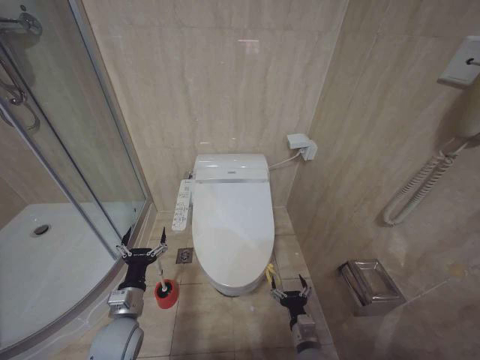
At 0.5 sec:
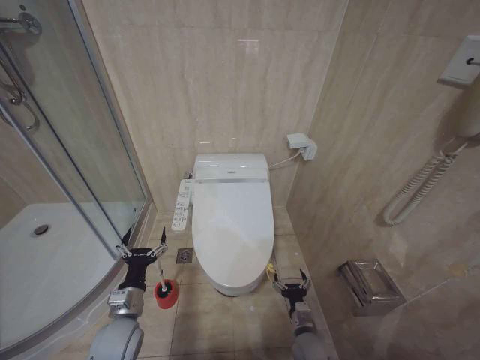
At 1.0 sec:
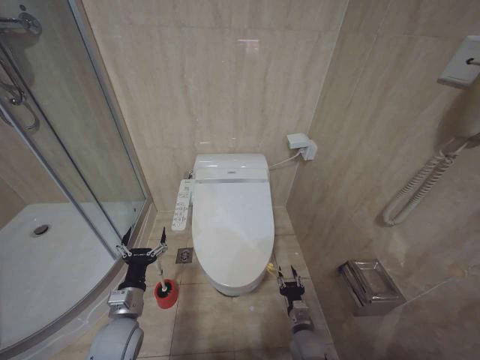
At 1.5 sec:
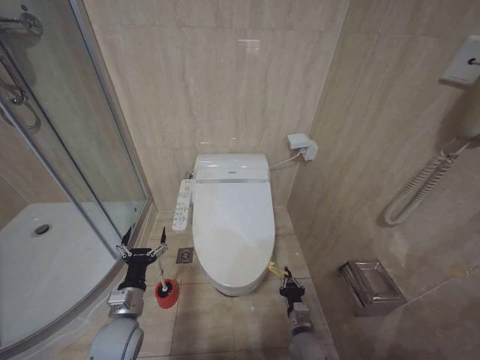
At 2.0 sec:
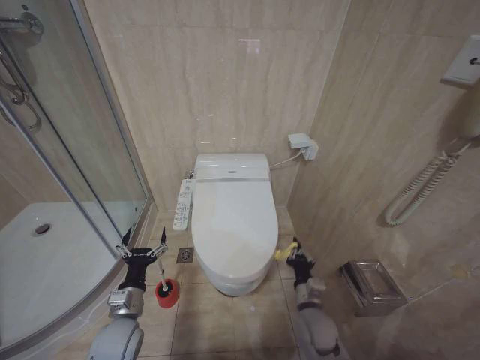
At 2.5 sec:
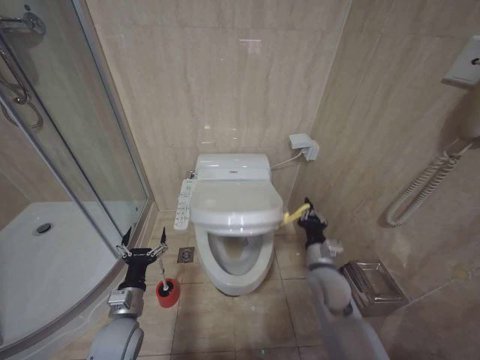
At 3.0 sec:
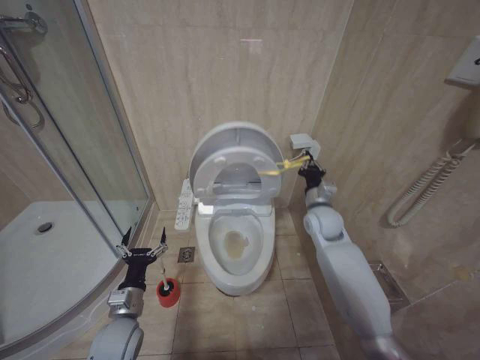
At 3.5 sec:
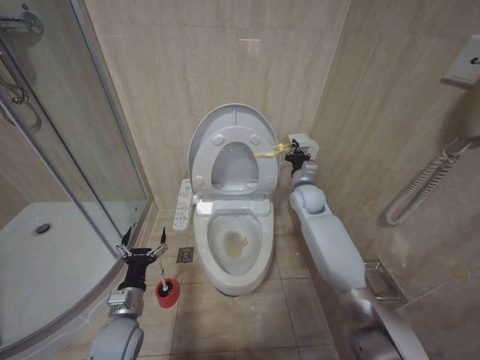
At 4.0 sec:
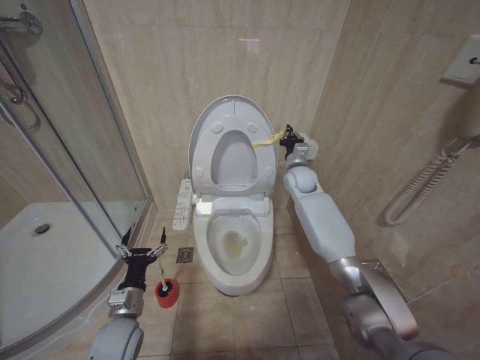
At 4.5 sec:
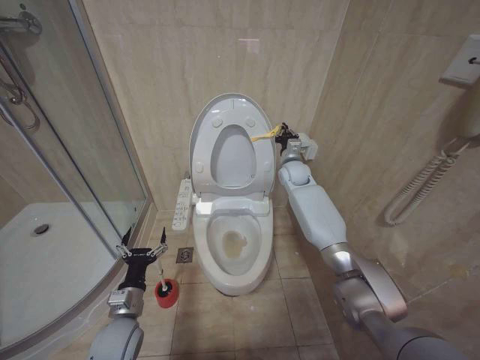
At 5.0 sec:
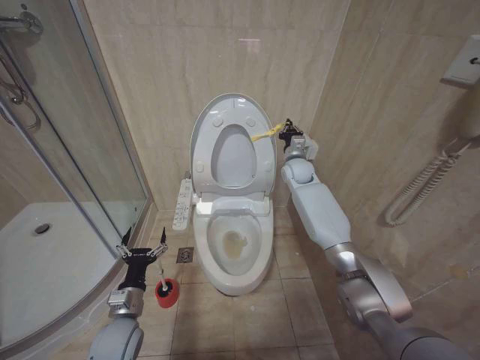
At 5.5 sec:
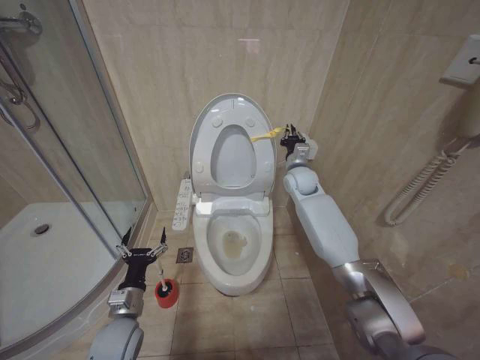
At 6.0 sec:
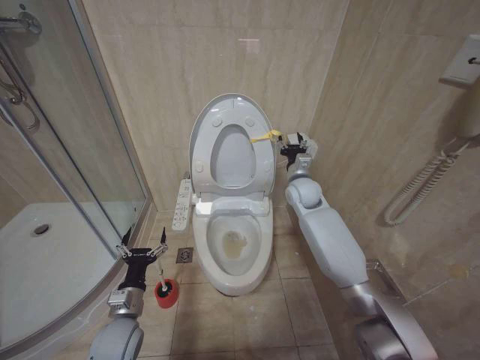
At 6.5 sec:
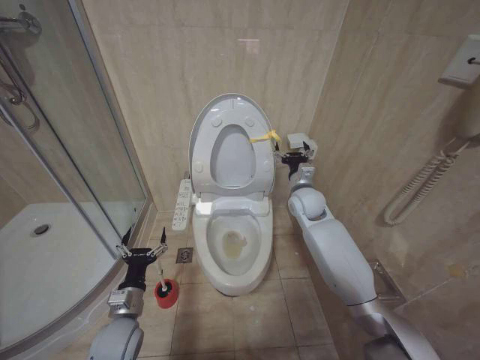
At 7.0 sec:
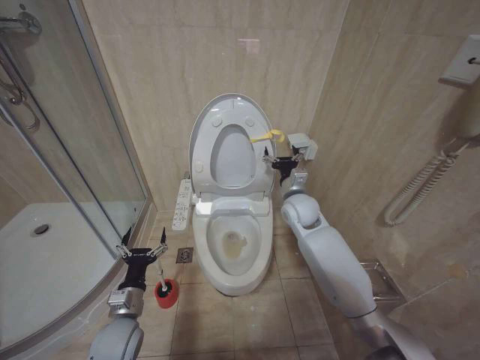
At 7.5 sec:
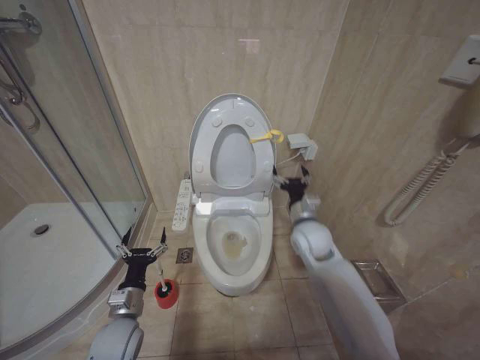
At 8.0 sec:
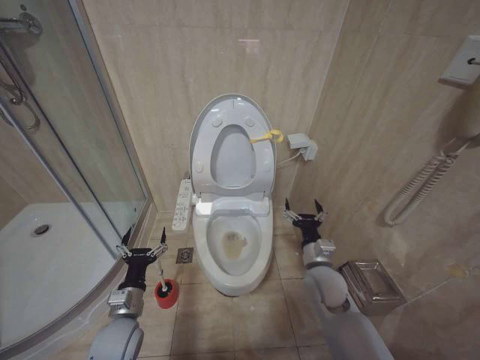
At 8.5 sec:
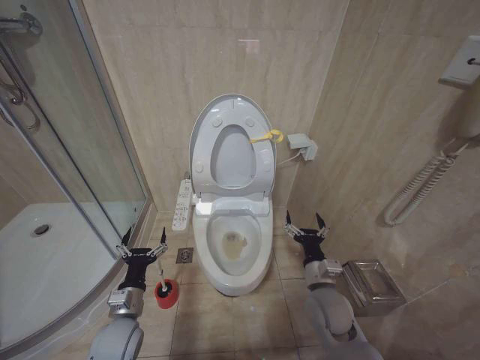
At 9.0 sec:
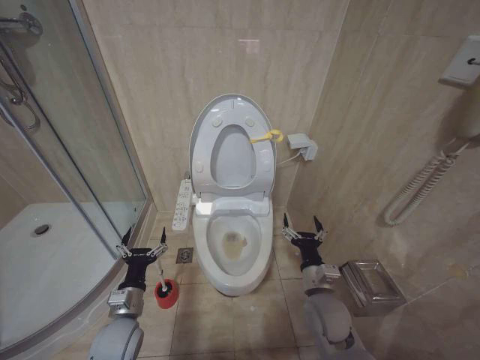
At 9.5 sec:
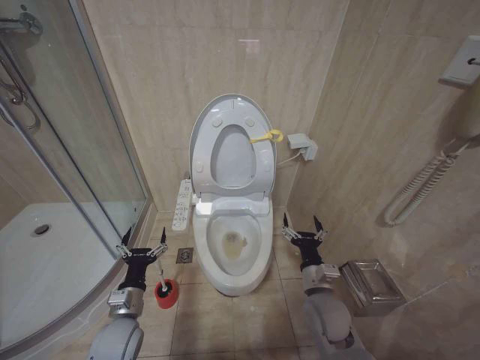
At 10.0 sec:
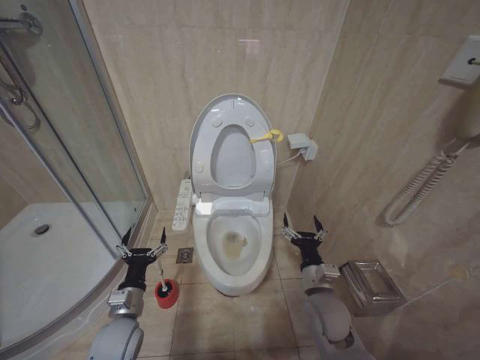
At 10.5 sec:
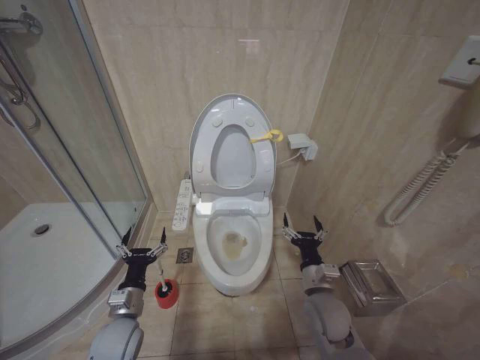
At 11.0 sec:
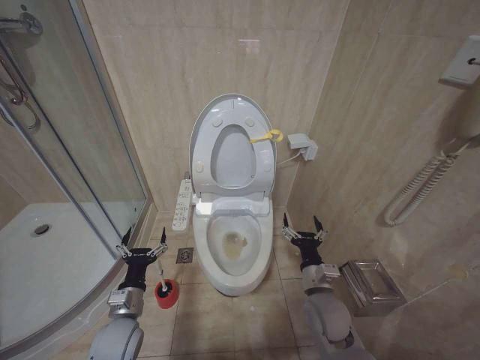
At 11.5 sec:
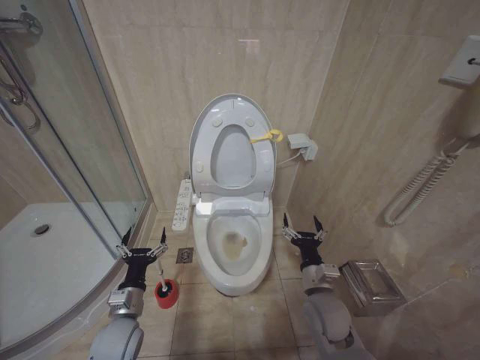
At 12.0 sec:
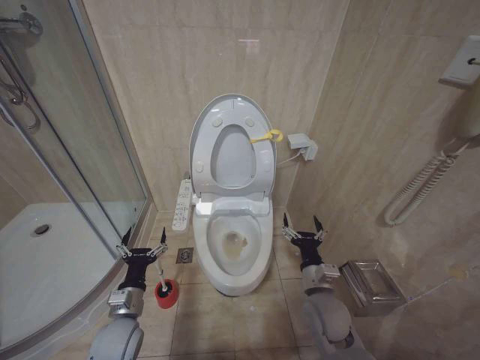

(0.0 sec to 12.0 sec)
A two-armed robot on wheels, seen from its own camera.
Task of the whole recording: Open the toilet lid, clean the toilet bowl with a toilet brush, close the toilet lid, and flush.
0.0 sec - 2.0 sec: The right gripper is displaced upward and forward by roughly 10 cm, and closes up.
2.0 sec - 4.0 sec: The right gripper travels forward and upward by approximately 40 cm.
4.0 sec - 6.0 sec: The grippers move only a little.
6.0 sec - 8.0 sec: The right gripper is displaced backward and downward by roughly 25 cm, and opens.
8.0 sec - 10.0 sec: The right gripper is displaced backward by roughly 5 cm.
10.0 sec - 12.0 sec: Both grippers stay put.

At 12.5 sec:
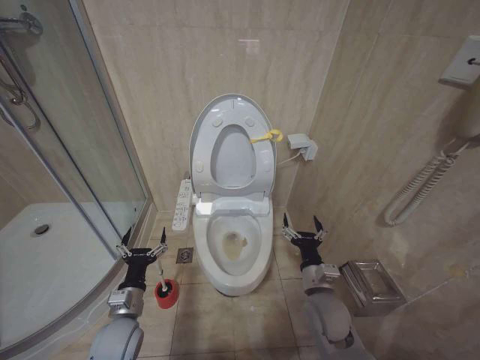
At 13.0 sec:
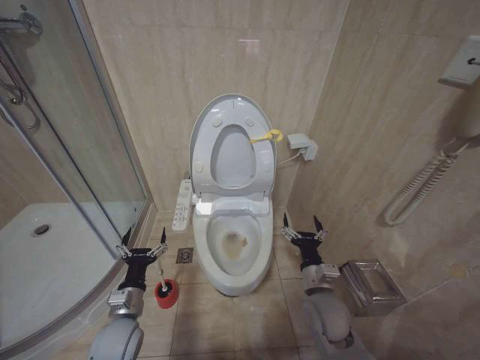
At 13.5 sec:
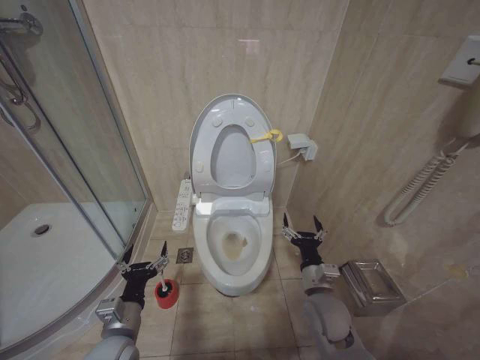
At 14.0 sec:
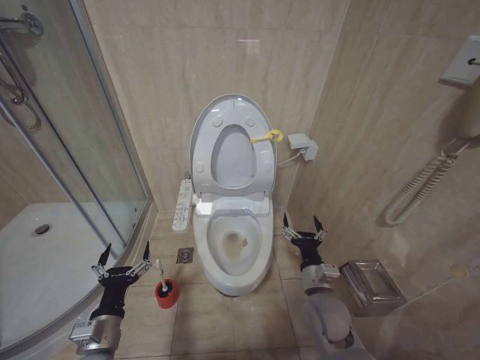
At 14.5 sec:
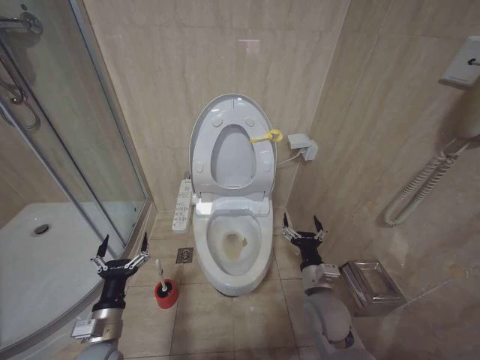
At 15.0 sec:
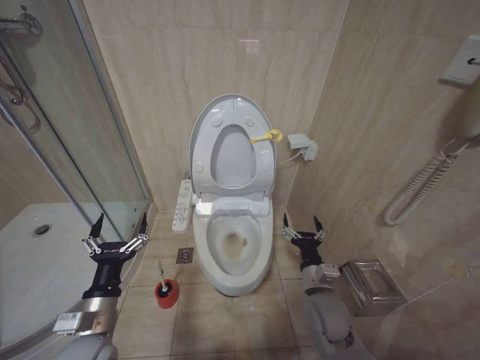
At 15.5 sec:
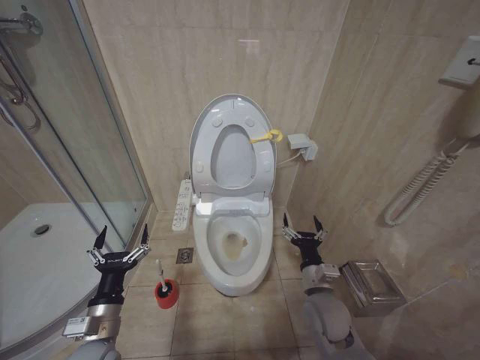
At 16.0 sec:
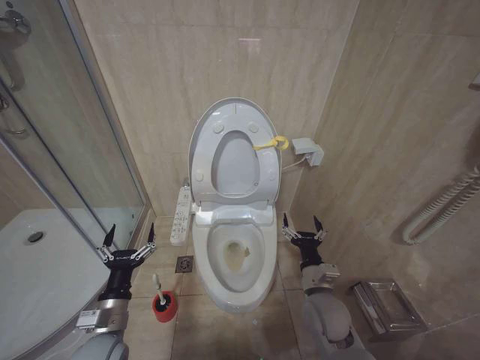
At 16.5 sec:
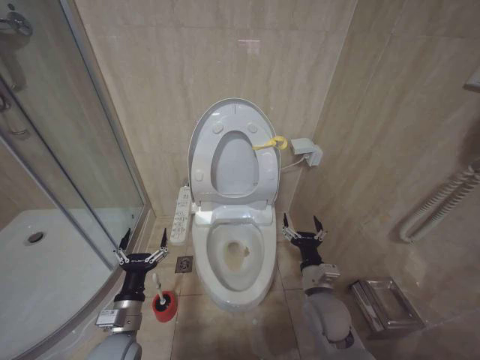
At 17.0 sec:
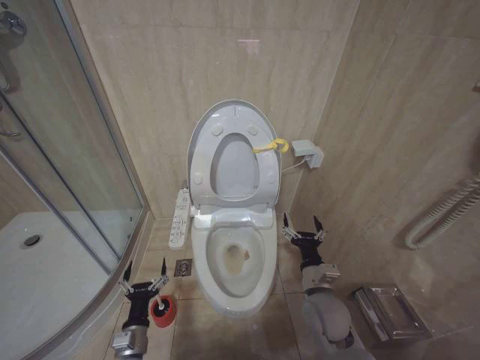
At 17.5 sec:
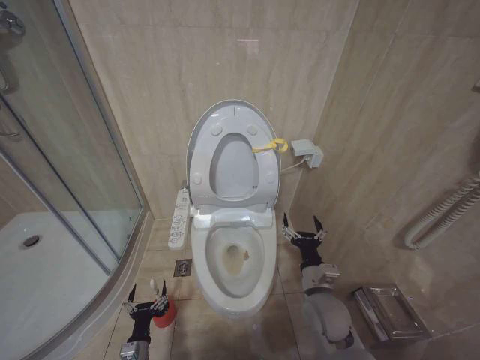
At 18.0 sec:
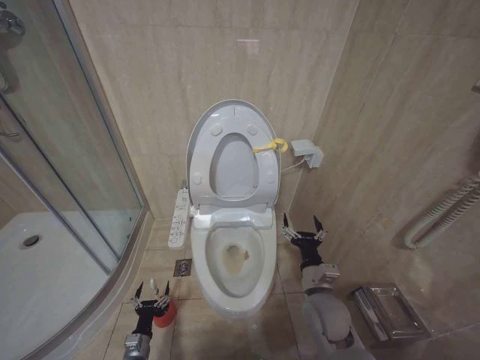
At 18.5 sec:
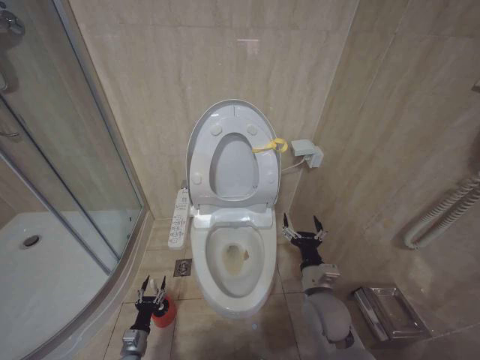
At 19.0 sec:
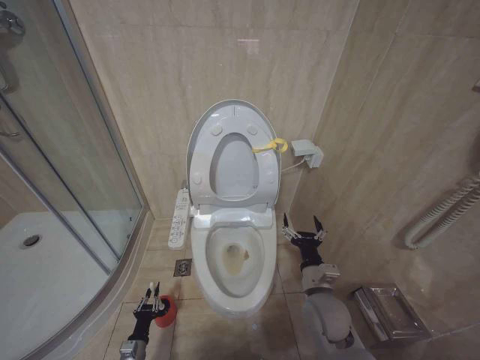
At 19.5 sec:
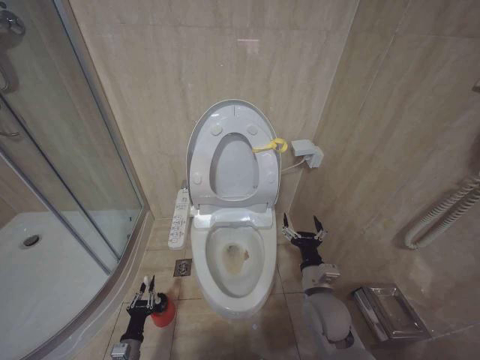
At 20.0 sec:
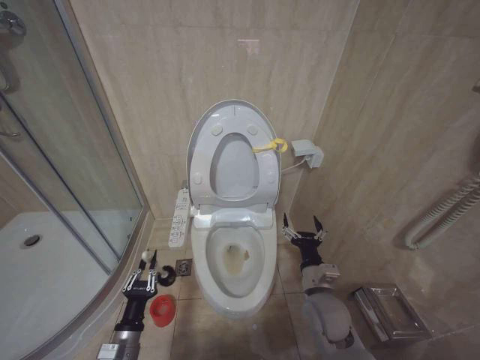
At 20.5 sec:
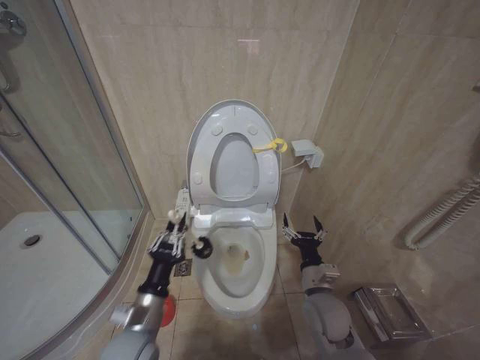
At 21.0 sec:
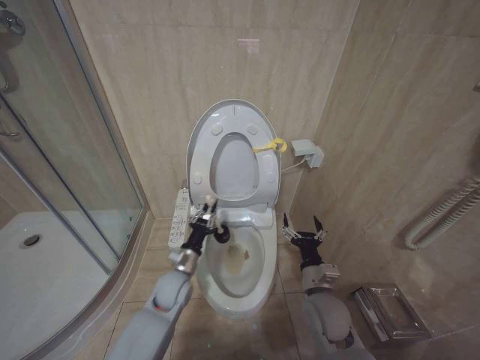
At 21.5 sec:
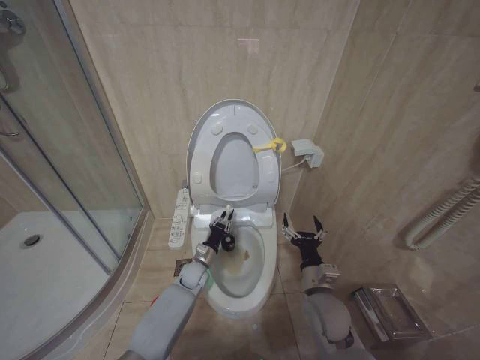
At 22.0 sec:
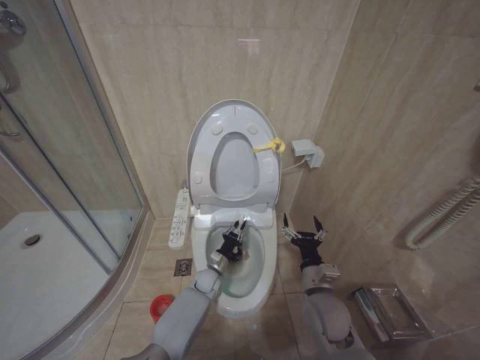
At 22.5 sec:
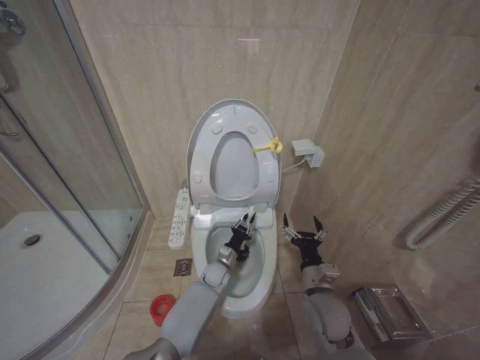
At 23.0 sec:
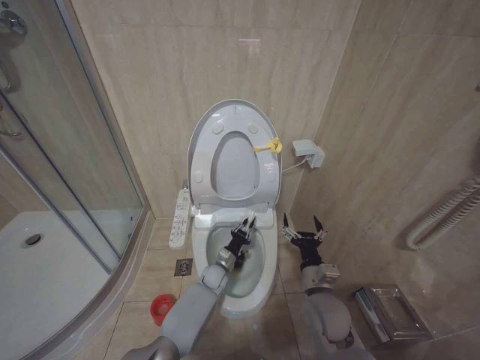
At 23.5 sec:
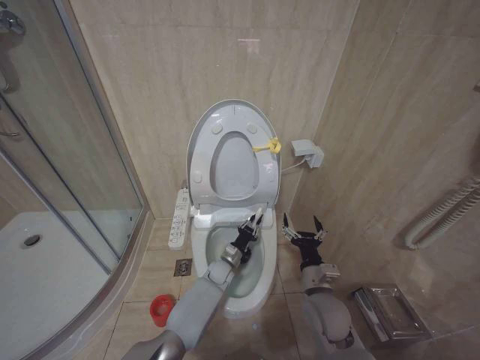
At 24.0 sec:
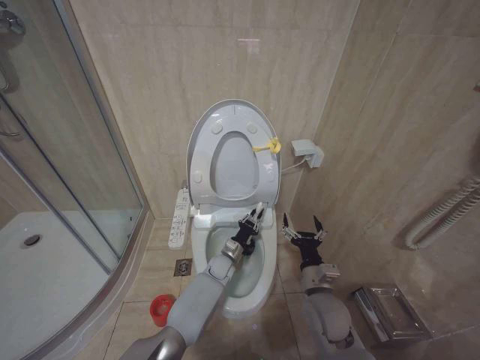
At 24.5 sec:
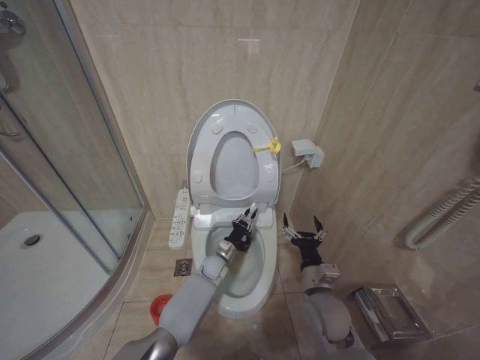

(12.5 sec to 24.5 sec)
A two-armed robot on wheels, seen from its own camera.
Task of the whole recording: Open the toilet lid, clean the toilet bowl with a toilet brush, close the toilet lid, and flush.
12.5 sec - 14.5 sec: The left gripper shifts approximately 5 cm backward.
16.5 sec - 18.5 sec: The left gripper travels downward by about 25 cm.
18.5 sec - 20.5 sec: The left gripper shifts approximately 30 cm upward, and closes up.
20.5 sec - 22.5 sec: The left gripper heads forward, downward and to the right, covering roughly 35 cm.
22.5 sec - 24.5 sec: The grippers stay close to where they were, moving slightly.

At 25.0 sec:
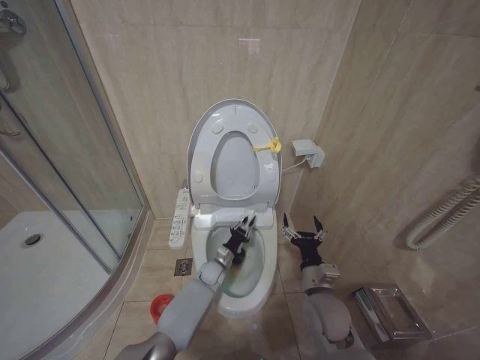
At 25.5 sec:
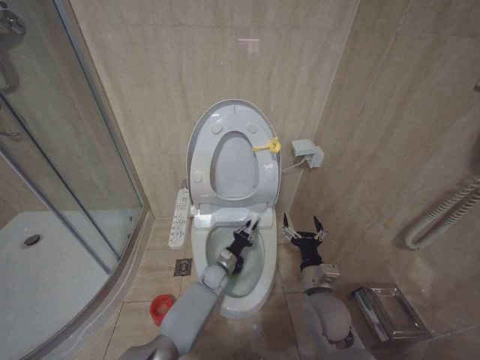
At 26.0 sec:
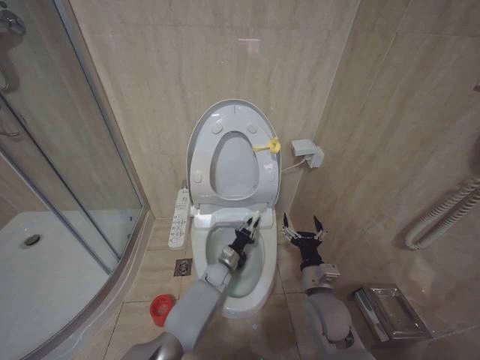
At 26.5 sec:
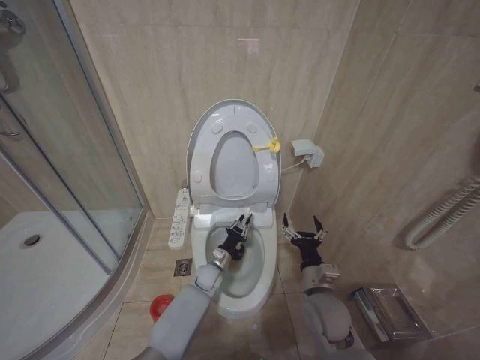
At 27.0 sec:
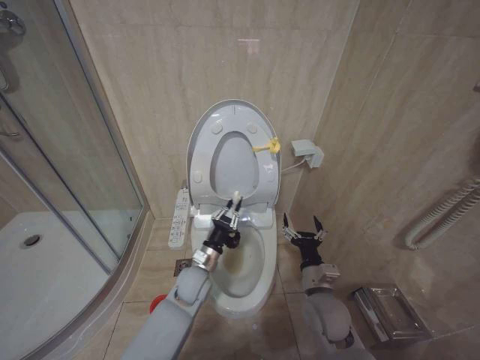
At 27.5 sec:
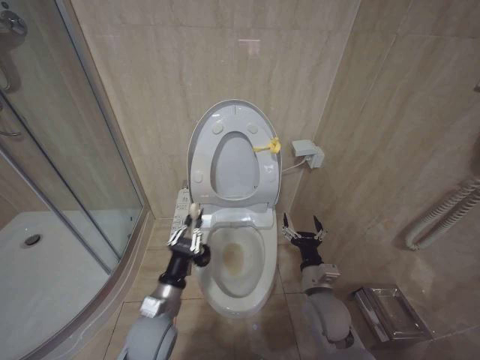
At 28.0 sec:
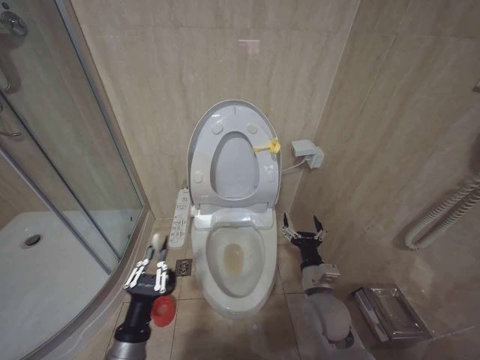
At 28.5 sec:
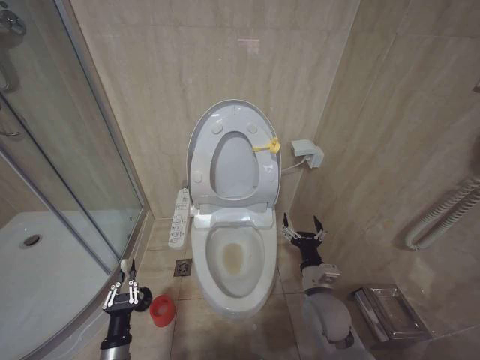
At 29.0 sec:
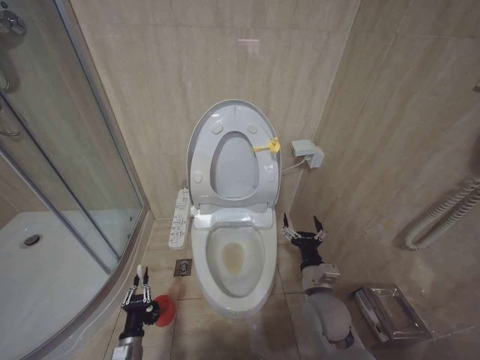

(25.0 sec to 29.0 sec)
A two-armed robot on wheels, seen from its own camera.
Task of the whole recording: Open the toilet lid, clean the toilet bowl with a toilet brush, close the toilet lid, and flush.
25.0 sec - 27.0 sec: The left gripper shifts approximately 15 cm upward and backward.
27.0 sec - 29.0 sec: The left gripper is displaced to the left, backward and downward by some 30 cm.
